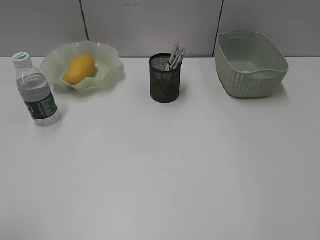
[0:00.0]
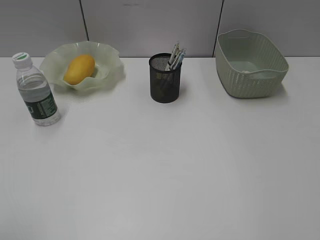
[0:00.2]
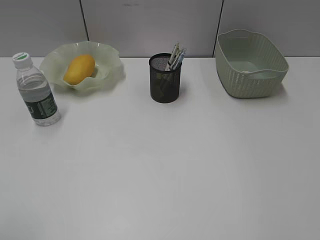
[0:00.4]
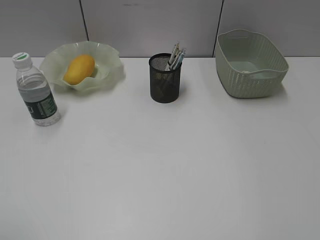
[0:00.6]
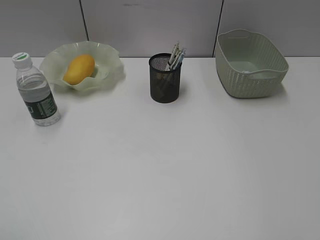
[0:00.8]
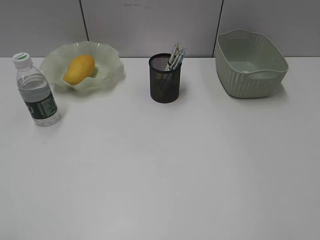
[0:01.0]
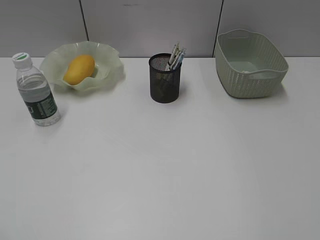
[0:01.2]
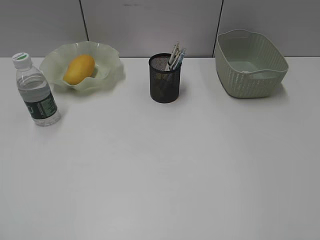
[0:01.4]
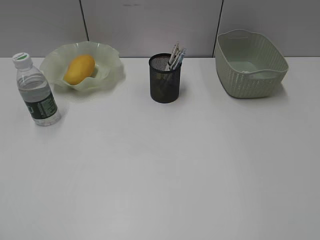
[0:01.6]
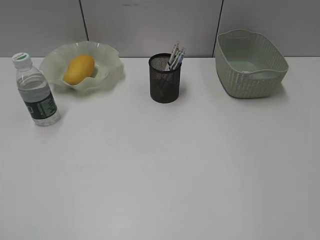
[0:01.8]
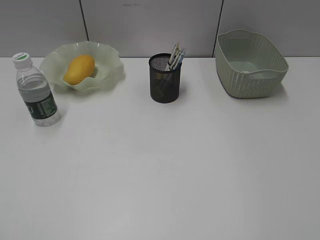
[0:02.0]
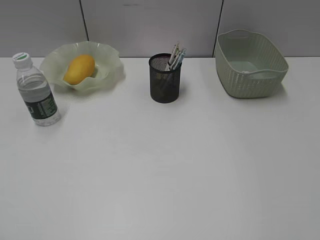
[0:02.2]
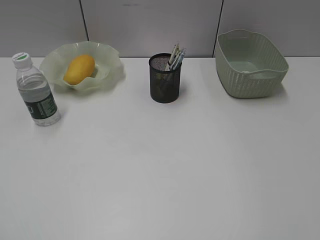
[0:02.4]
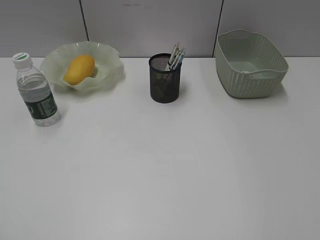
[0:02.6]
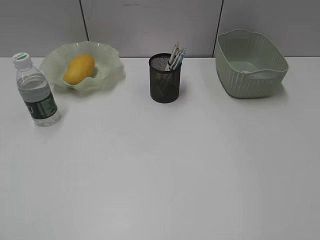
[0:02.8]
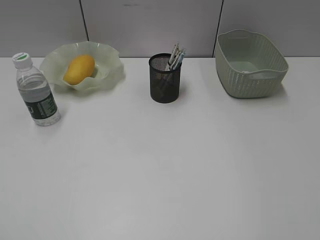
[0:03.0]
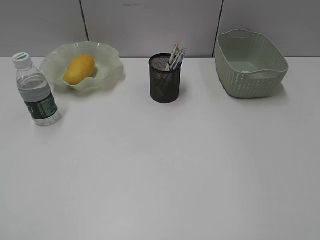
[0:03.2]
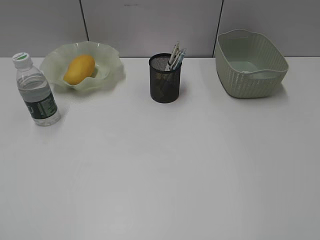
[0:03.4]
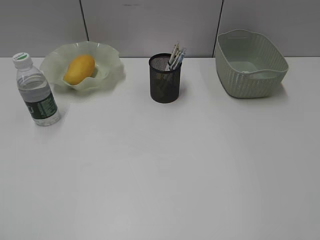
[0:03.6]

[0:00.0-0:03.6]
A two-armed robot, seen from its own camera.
0:01.8 to 0:03.6: The two grippers keep their place.
